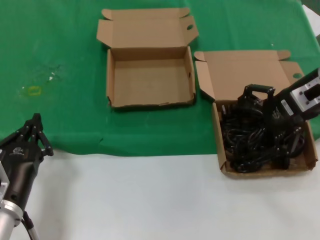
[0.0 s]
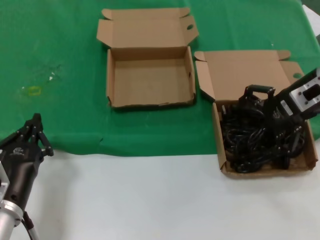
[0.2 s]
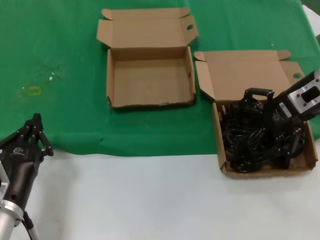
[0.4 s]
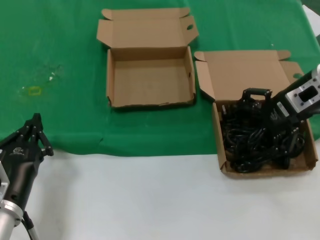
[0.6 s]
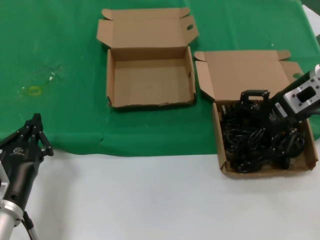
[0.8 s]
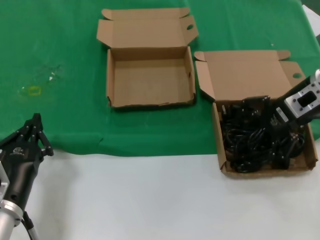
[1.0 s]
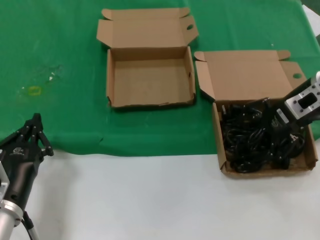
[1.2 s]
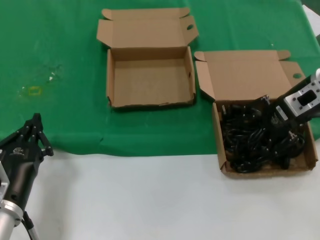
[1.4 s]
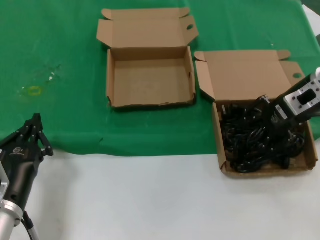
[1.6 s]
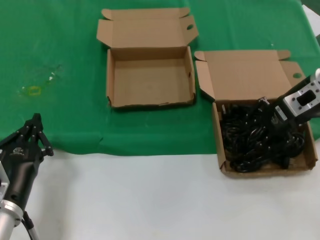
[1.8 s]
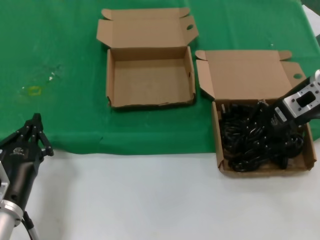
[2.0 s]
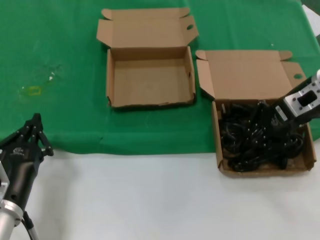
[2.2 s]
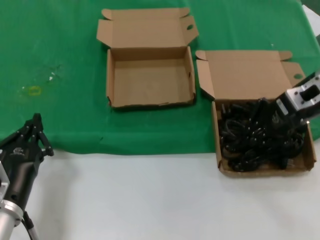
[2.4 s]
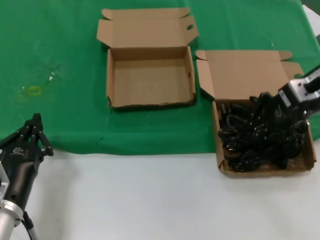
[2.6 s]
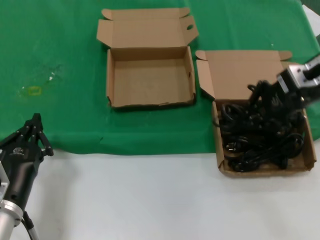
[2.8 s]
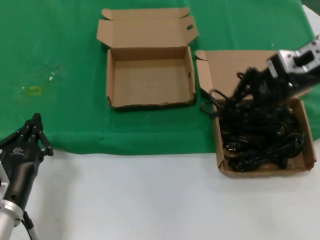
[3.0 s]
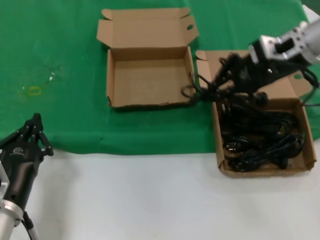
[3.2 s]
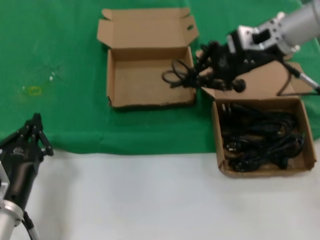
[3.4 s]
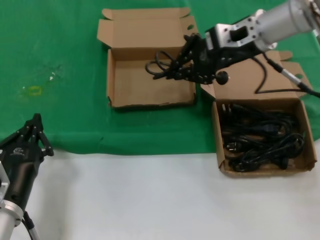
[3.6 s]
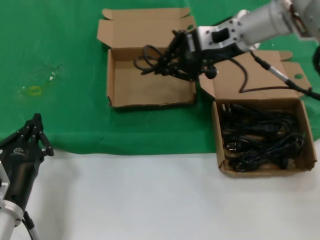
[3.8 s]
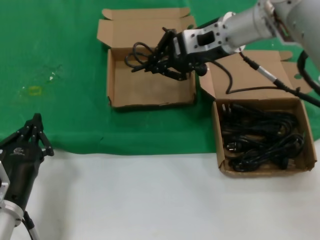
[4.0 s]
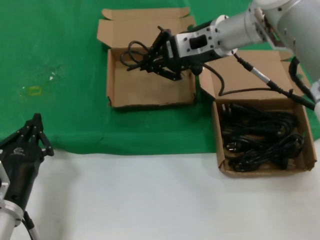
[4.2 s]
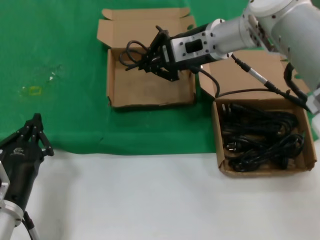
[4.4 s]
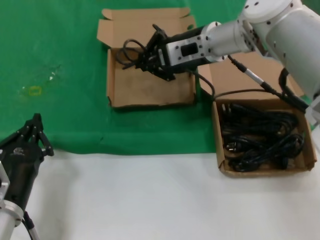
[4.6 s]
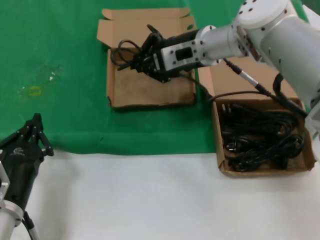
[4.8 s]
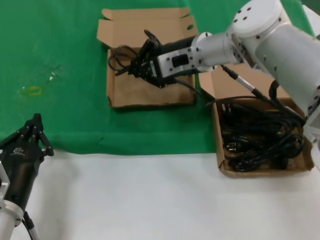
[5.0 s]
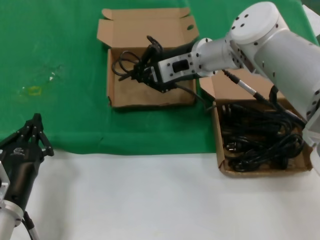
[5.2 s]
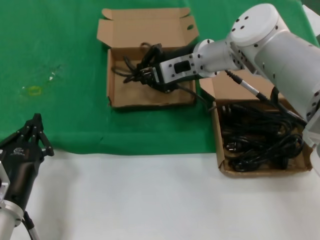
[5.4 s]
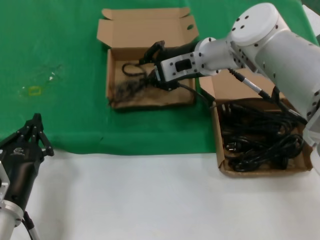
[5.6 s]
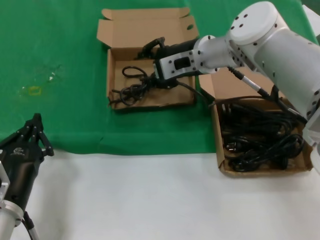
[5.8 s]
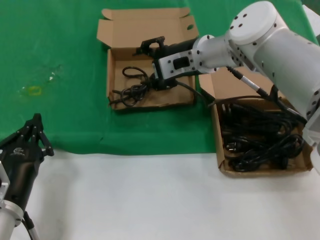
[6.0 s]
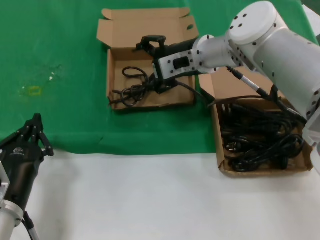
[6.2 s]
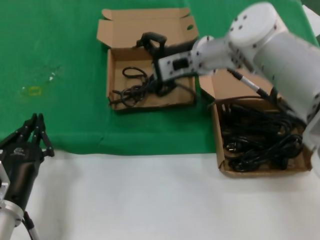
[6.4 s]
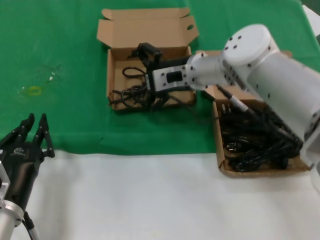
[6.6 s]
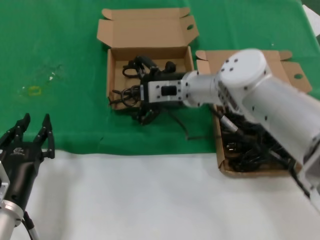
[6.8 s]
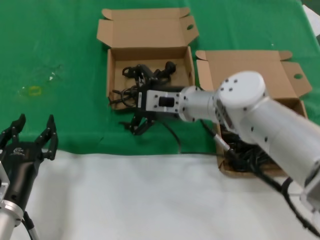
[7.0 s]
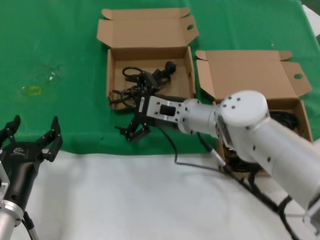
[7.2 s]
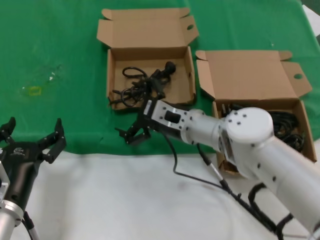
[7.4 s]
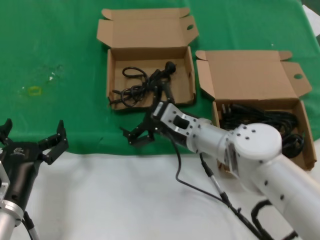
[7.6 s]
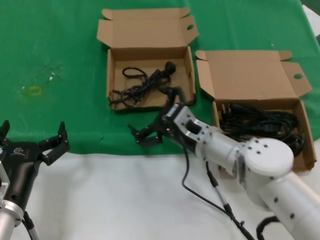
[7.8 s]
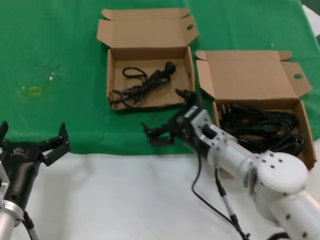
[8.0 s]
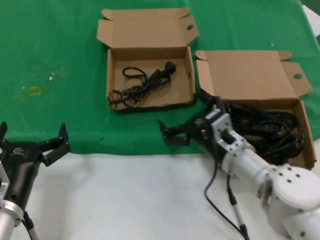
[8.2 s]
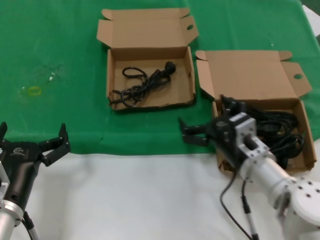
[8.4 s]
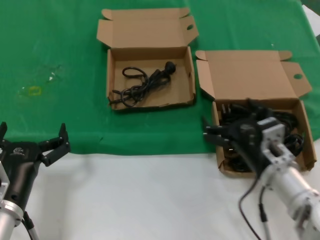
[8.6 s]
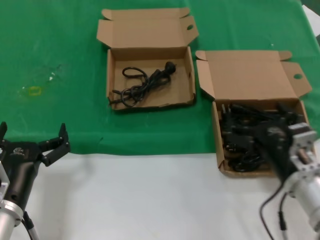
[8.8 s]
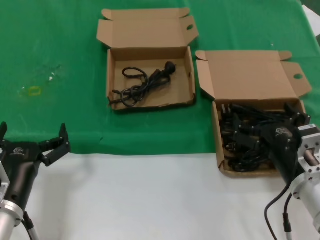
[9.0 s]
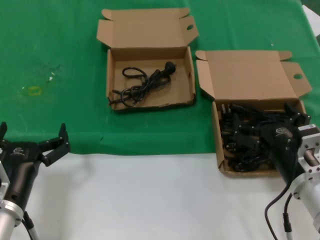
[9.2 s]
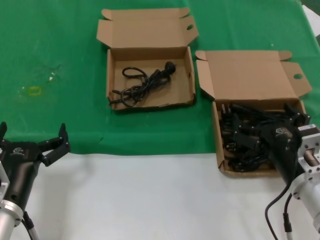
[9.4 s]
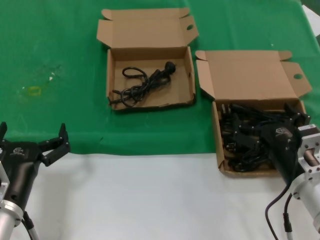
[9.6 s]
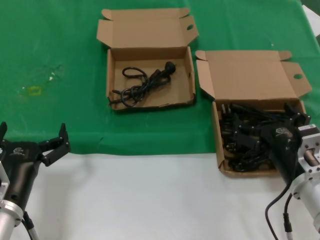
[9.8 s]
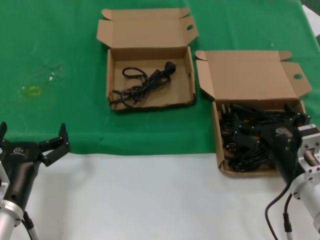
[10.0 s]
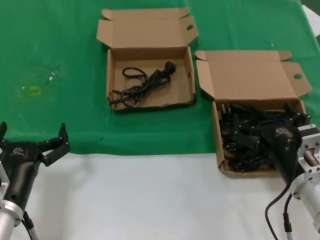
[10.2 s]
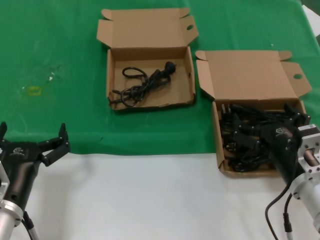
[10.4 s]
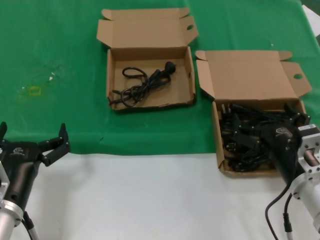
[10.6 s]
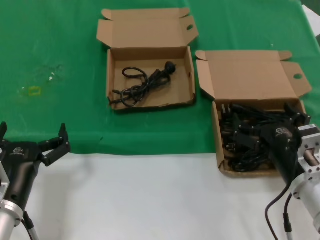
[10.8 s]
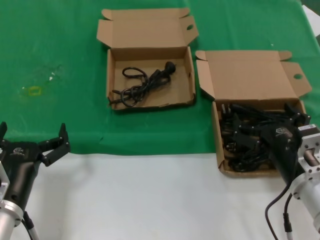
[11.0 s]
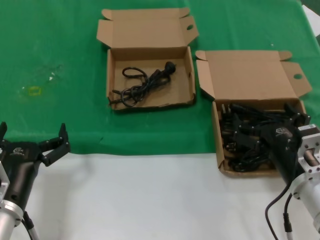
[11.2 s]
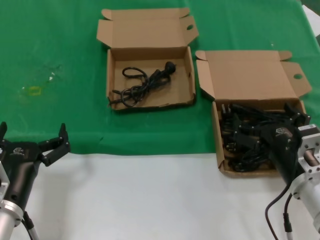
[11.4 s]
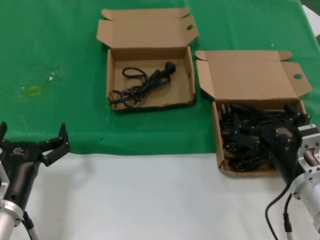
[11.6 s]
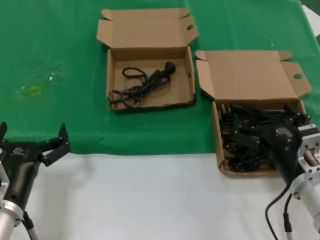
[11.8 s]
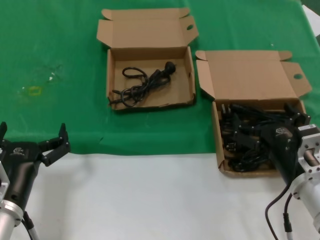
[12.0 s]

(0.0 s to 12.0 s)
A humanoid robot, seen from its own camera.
Task of the whole recording: take the parts from the box containing them and put them into an empty box.
Step, 0.0 s - 2.4 s: Grasp the data cable.
Step, 2.6 s - 5.6 s: Place the data cable in the another box.
0.0 s - 1.6 s: There are only small adjustments of the hands.
1.6 s - 3.0 s: The right hand heads upward, covering roughly 5 cm.
3.0 s - 4.4 s: The right hand shifts about 20 cm to the left and forward.
4.4 s - 6.0 s: There are only small adjustments of the hands.
6.0 s - 7.6 s: The right hand heads downward and backward, covering about 20 cm.
7.6 s - 9.0 s: The right hand shifts some 20 cm backward and to the right.
9.0 s - 12.0 s: The two hands keep their place.

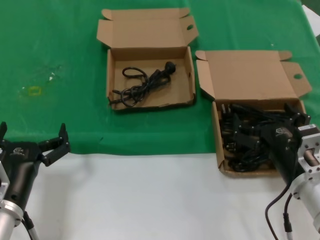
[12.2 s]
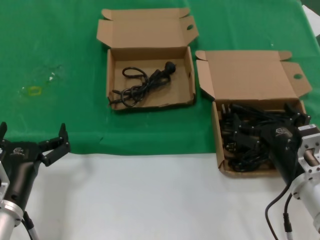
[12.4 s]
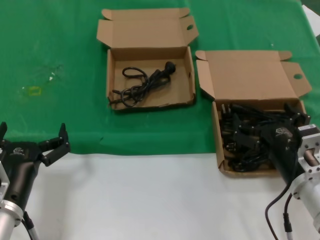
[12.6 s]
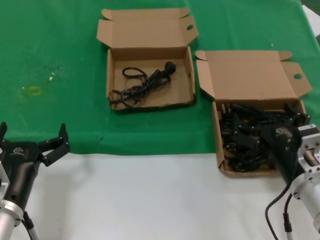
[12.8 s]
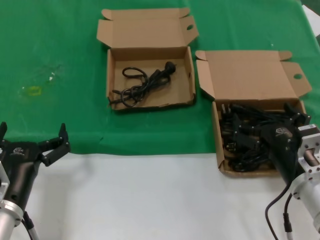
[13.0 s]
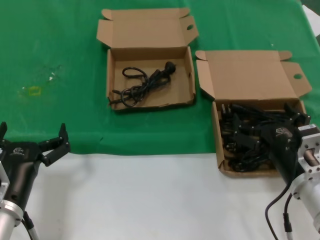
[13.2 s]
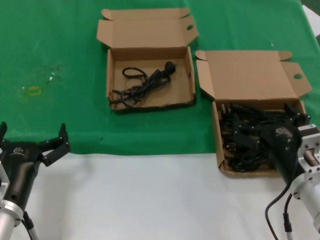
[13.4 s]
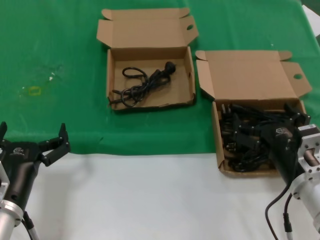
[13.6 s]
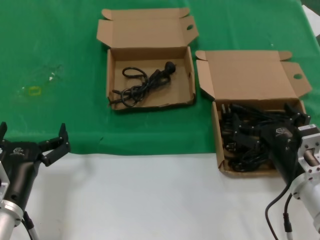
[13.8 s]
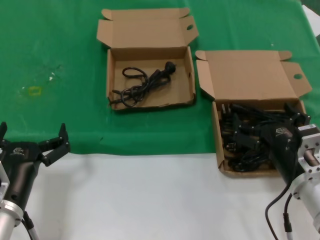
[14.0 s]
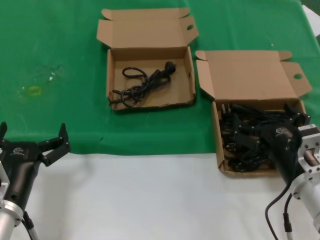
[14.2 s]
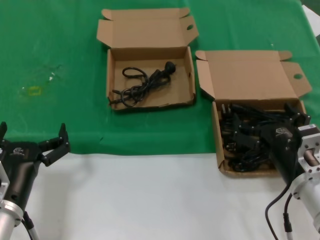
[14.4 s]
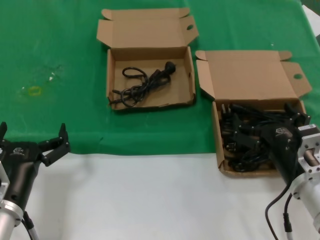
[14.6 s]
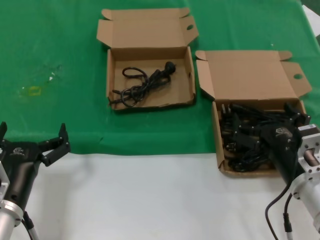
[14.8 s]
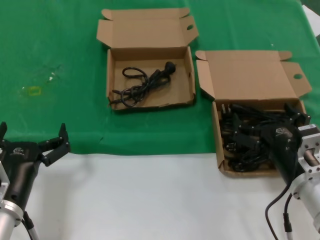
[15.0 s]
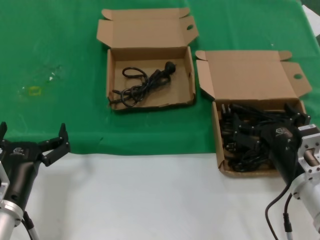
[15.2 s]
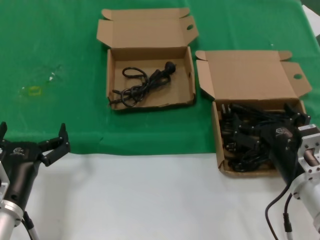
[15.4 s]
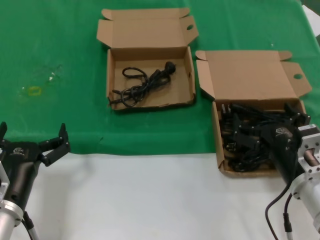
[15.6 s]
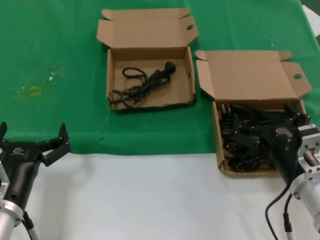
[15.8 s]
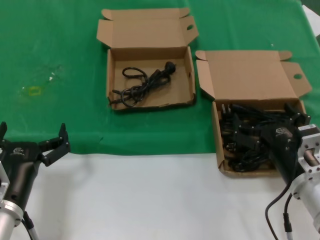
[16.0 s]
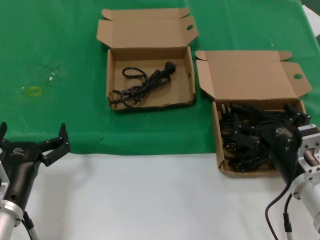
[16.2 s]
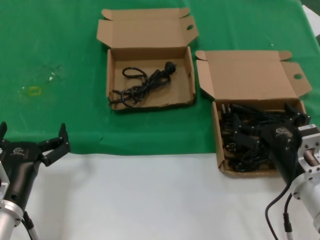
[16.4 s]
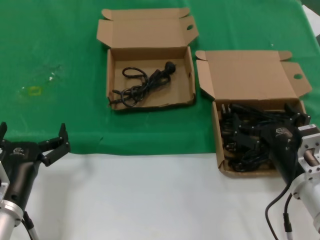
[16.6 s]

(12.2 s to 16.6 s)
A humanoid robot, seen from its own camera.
Task of the whole recording: take the parts from the box containing them and put them into an empty box.
12.2 s - 16.6 s: The two hands keep their place.
